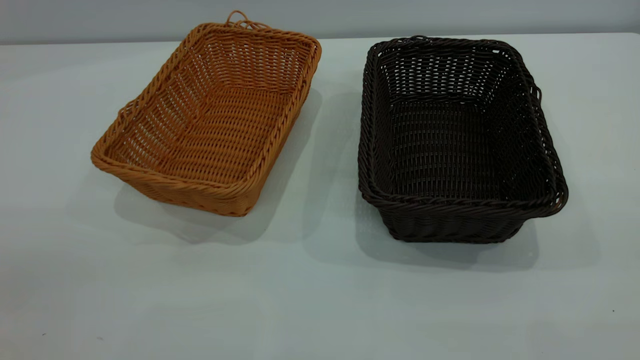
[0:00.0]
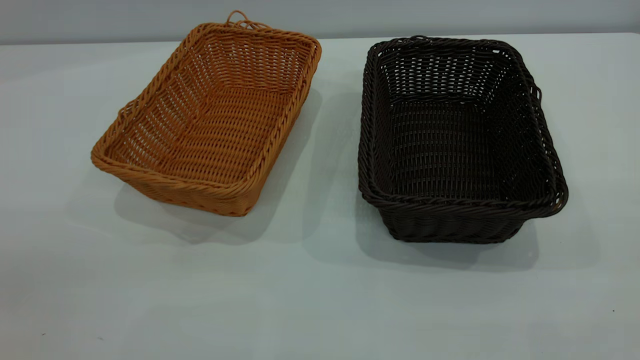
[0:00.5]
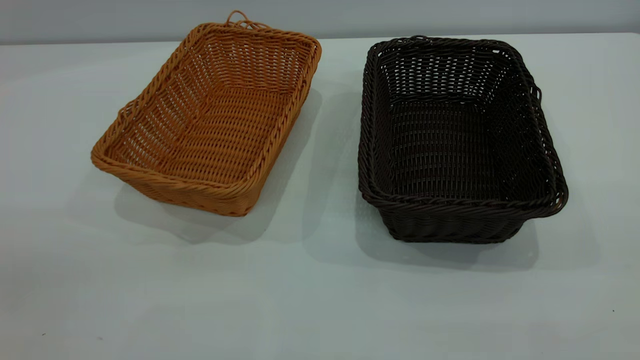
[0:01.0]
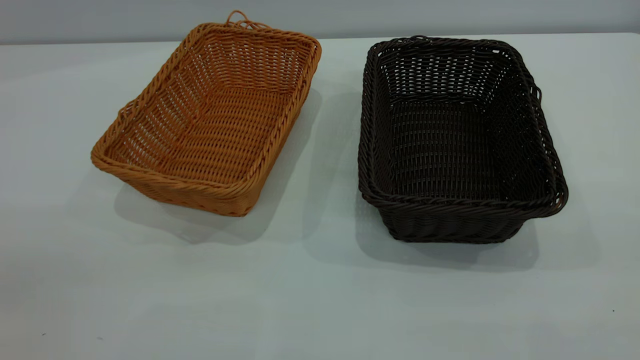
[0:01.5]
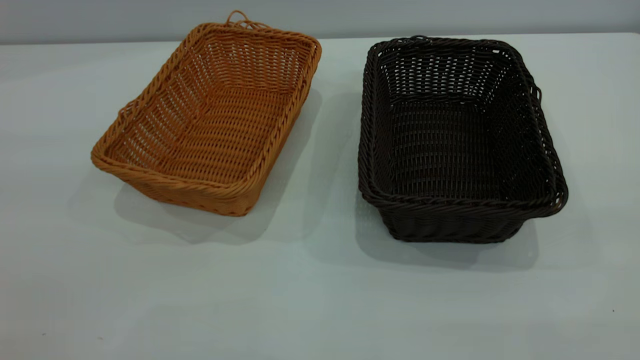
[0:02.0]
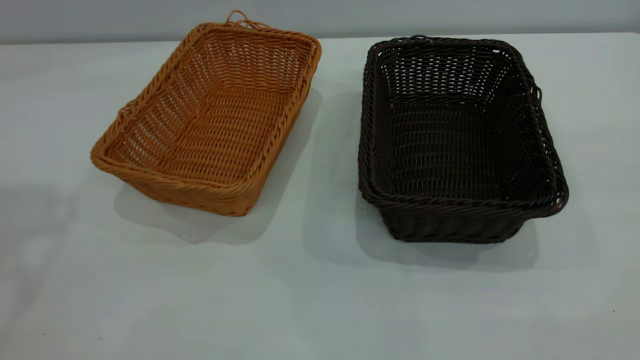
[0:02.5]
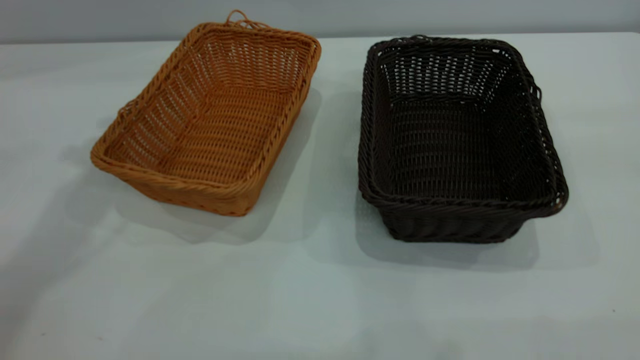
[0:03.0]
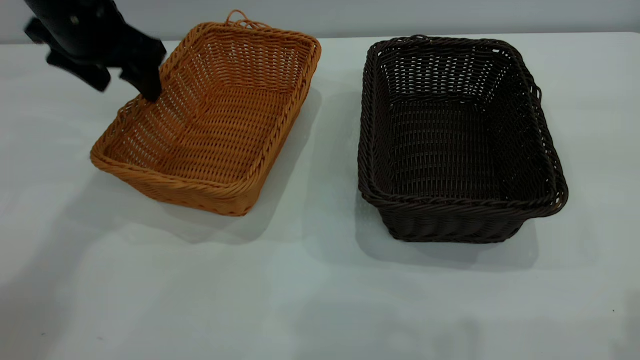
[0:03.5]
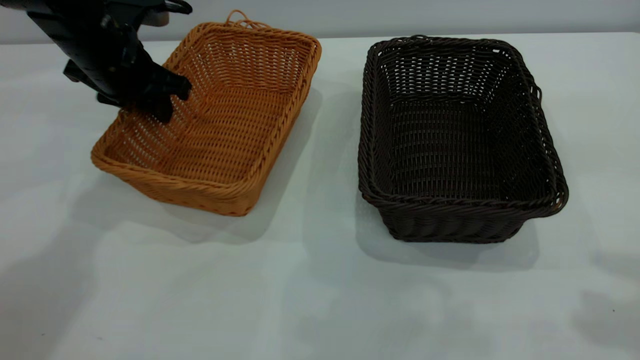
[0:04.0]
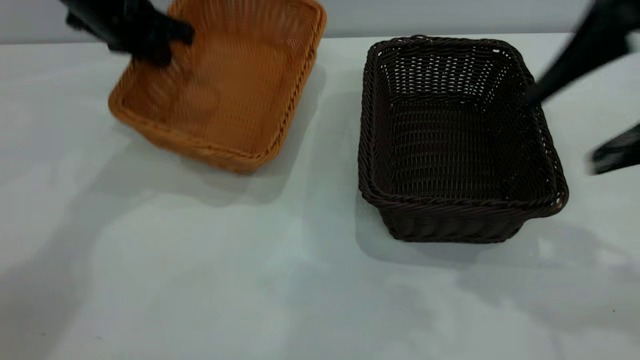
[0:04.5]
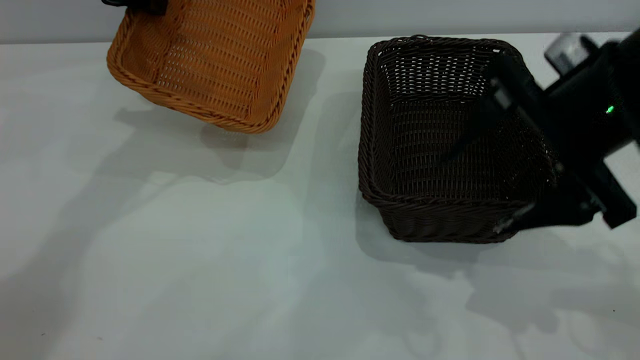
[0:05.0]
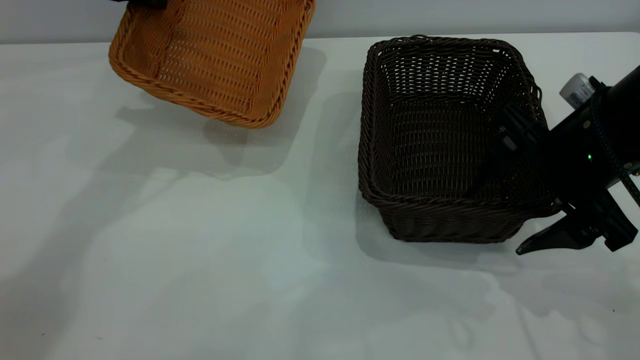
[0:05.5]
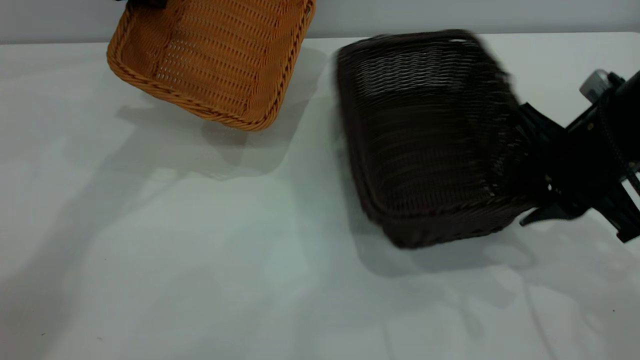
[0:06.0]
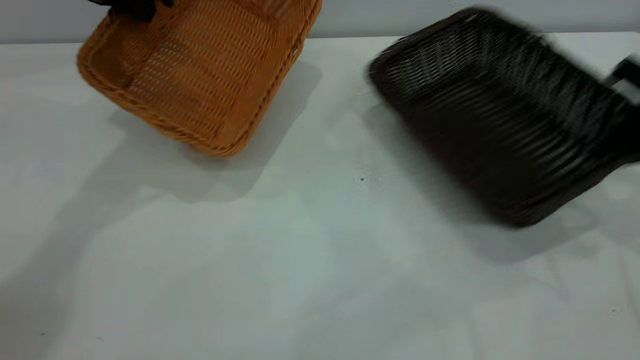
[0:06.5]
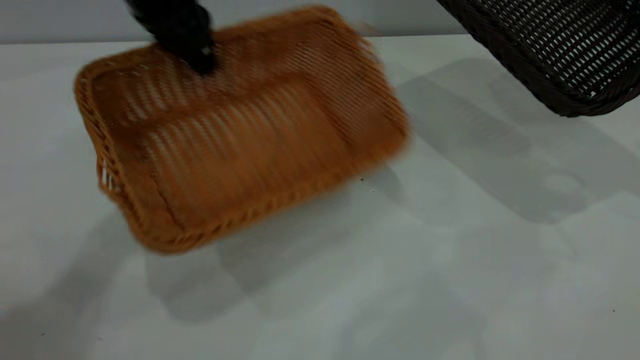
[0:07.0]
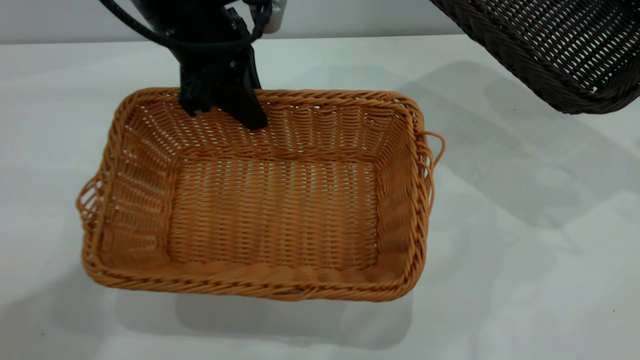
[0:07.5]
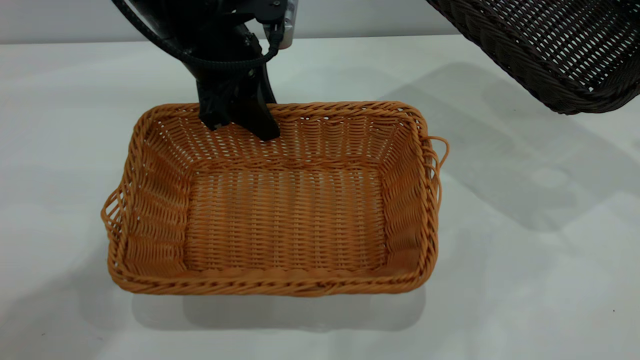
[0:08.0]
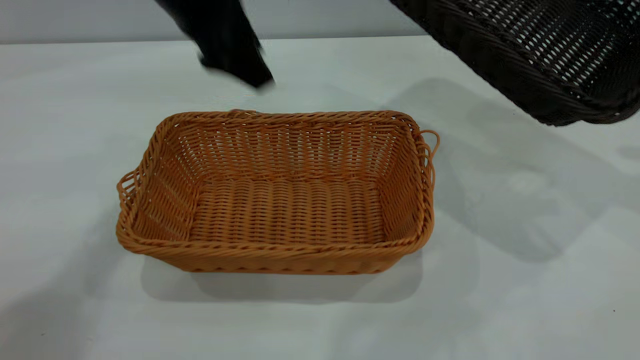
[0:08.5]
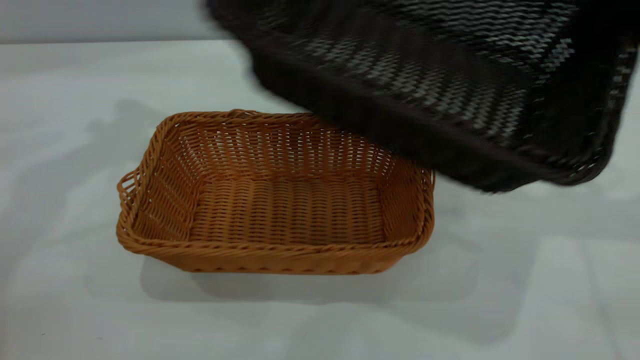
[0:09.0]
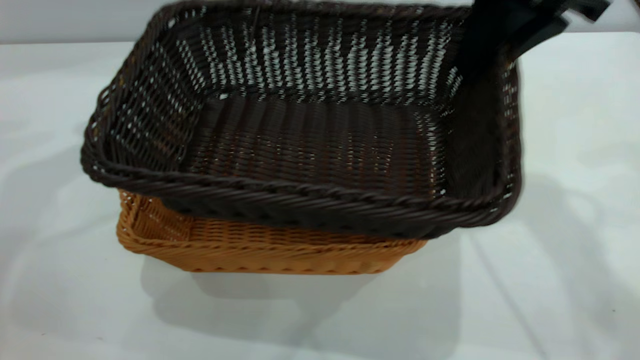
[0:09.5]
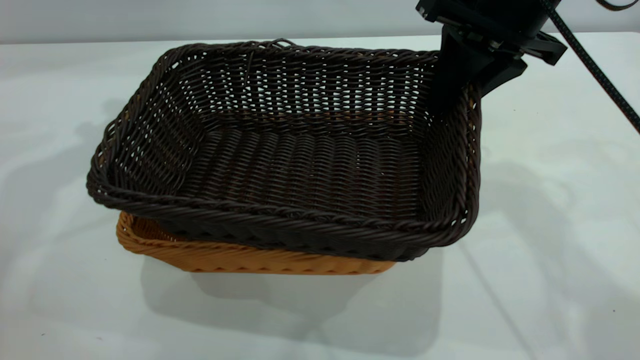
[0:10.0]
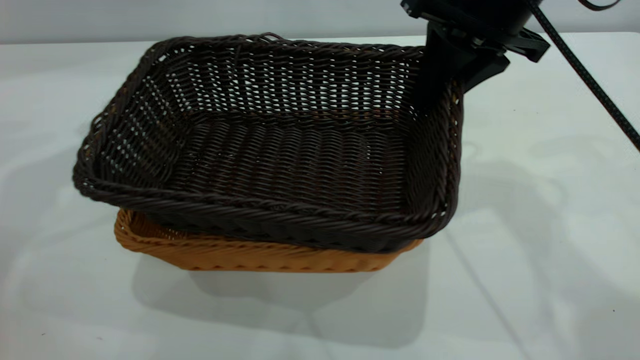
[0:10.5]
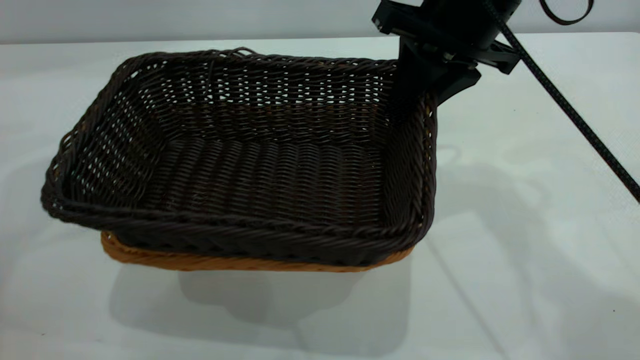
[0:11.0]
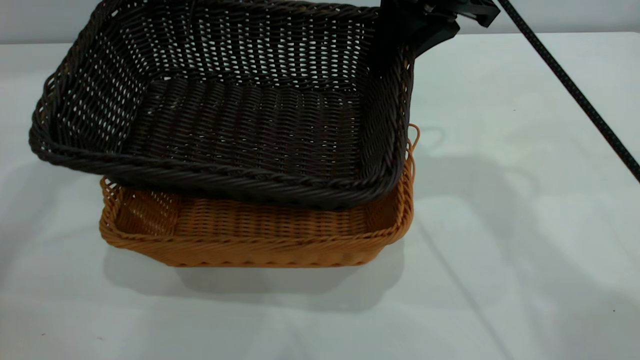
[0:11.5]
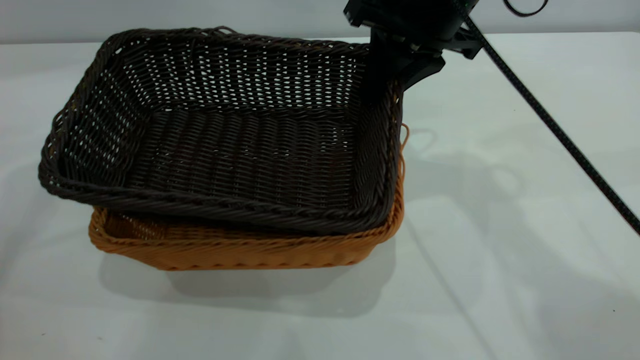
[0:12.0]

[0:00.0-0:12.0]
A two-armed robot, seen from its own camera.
Task of the whole recording: the left gripper grasp the brown basket and place it in the center of the table, the right gripper grasp the black basket and place it inside the brown one.
Step, 0:00.0 to 0:06.5: Pick up the light basket with the right gripper.
Step, 0:07.0 to 0:08.0: Place the light-colored basket in the center.
0:02.0 to 0:04.0: The left gripper heads forward and downward, covering some 50 cm, and closes.
0:04.0 to 0:06.0: The right gripper is displaced downward and forward by some 20 cm, and closes. Meanwhile the left gripper is displaced upward by about 10 cm.
0:06.0 to 0:08.0: The left gripper travels to the right, backward and downward by approximately 15 cm, and opens its fingers, while the right gripper is displaced to the right and upward by about 20 cm.
0:08.0 to 0:10.0: The left gripper moves to the left and upward, roughly 20 cm, and opens its fingers. The right gripper shifts some 25 cm to the left.
0:10.0 to 0:12.0: The right gripper shifts roughly 5 cm to the left.

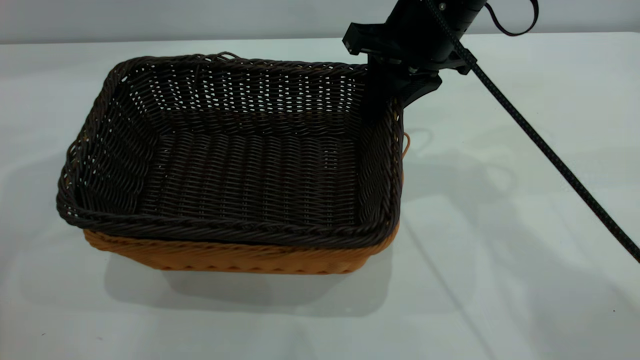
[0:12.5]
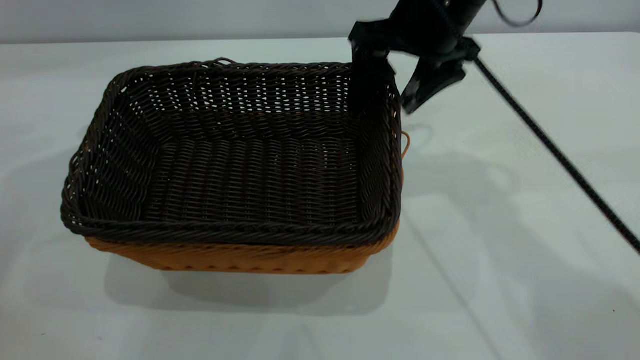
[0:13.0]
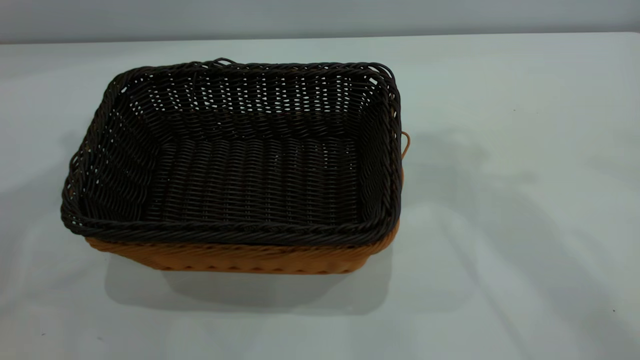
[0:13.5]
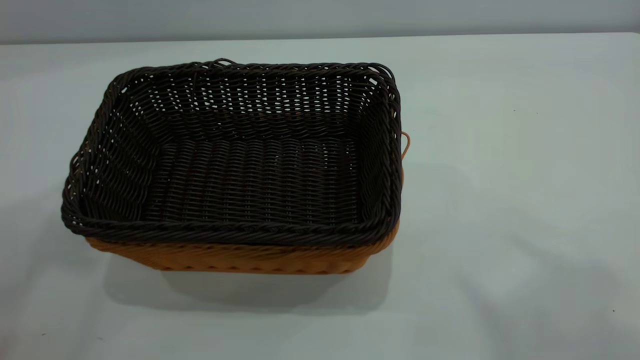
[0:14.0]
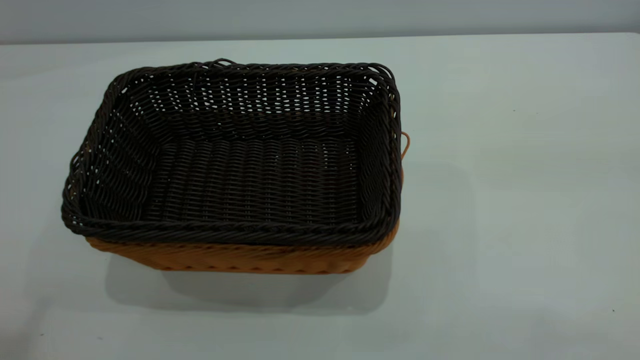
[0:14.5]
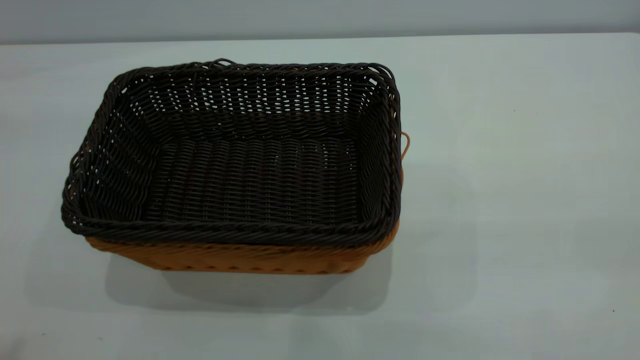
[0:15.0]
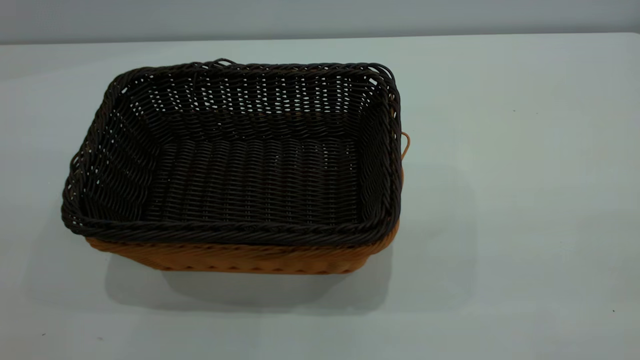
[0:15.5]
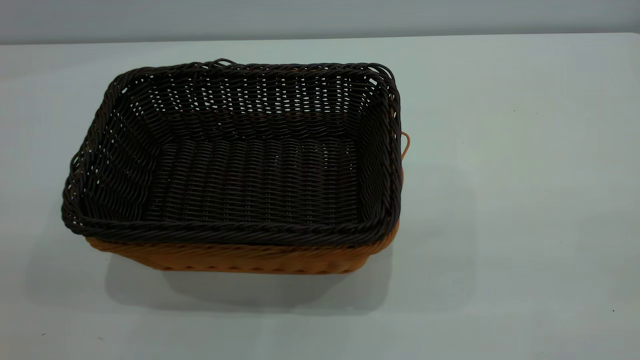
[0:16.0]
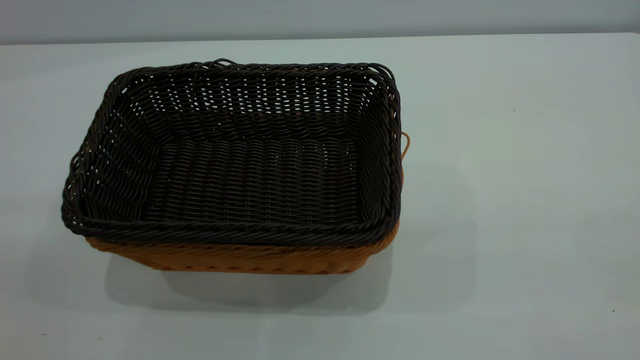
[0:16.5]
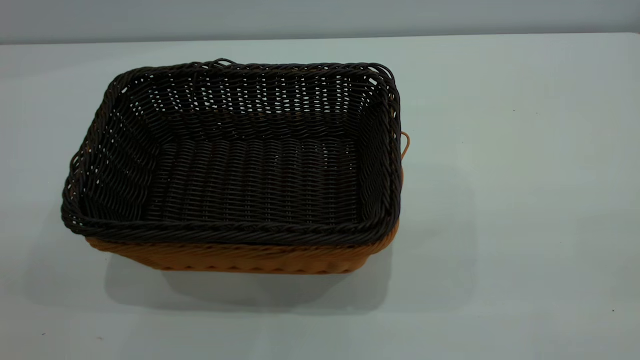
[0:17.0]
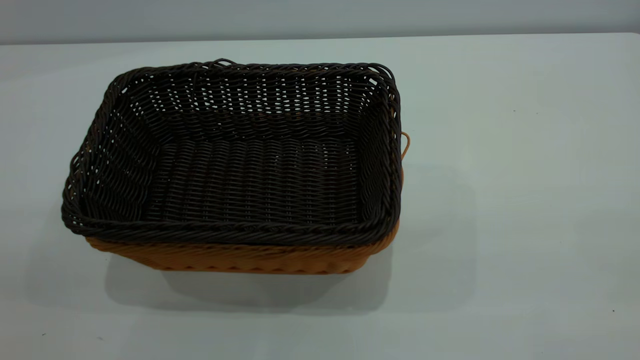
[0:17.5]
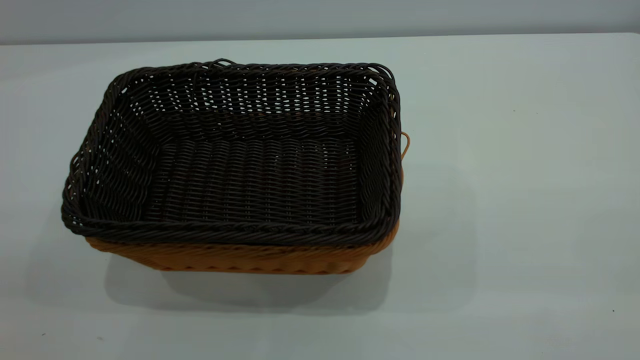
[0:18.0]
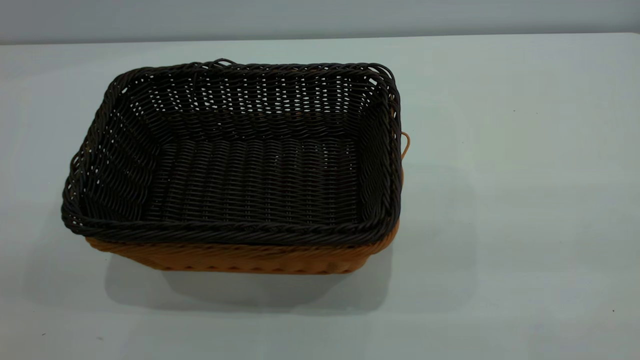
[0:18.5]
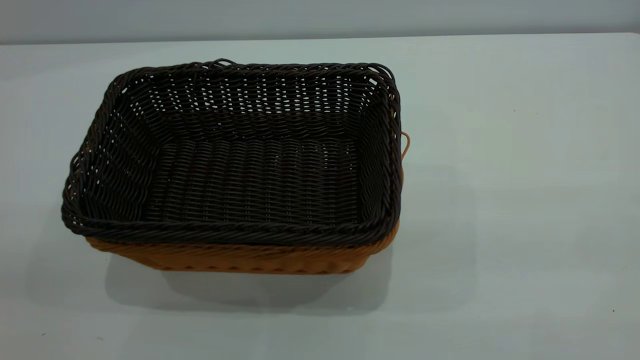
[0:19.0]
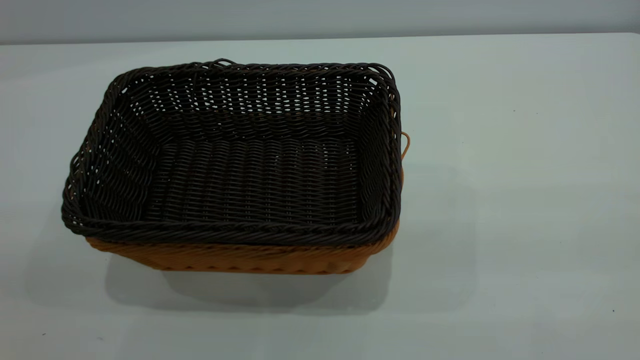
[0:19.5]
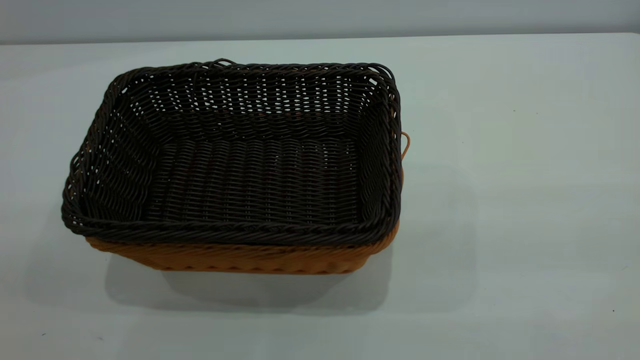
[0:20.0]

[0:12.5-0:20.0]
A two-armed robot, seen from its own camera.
Task of the whole recording: the left gripper grasp the brown basket and place it in the center of the table, the right gripper grasp the black basket and place it inside the brown one.
0:12.5 to 0:14.5: The left gripper moves backward and upward, some 40 cm, while the right gripper moves backward, upward and to the right, approximately 50 cm, and opens its fingers.
